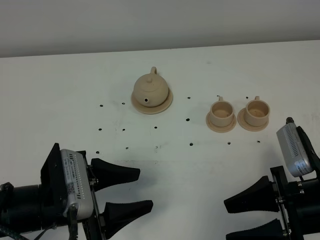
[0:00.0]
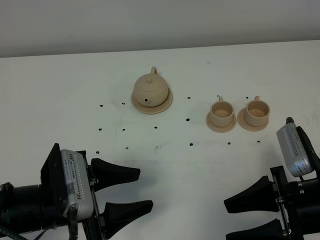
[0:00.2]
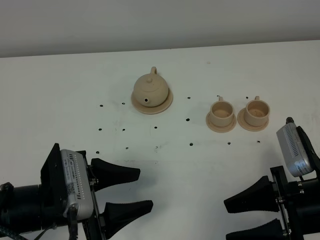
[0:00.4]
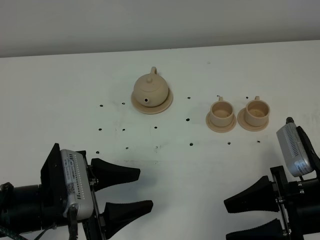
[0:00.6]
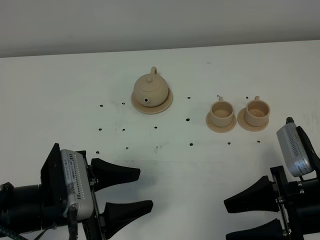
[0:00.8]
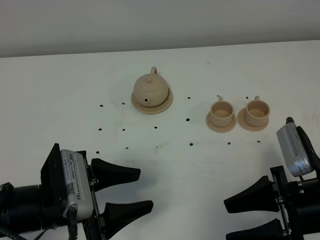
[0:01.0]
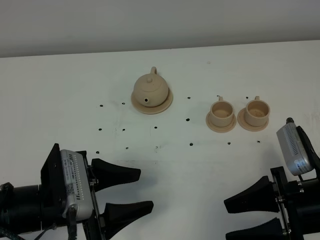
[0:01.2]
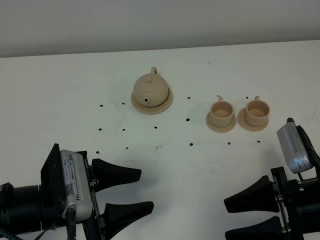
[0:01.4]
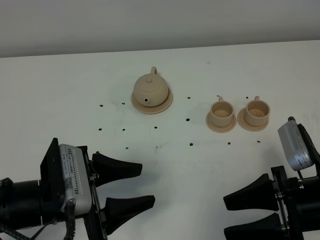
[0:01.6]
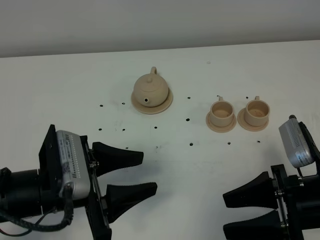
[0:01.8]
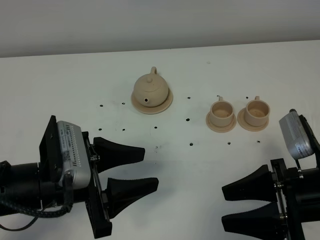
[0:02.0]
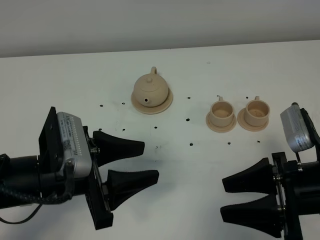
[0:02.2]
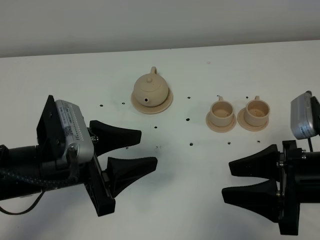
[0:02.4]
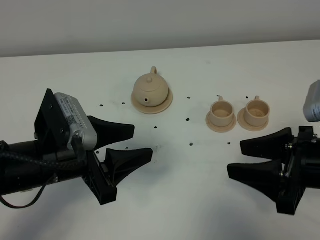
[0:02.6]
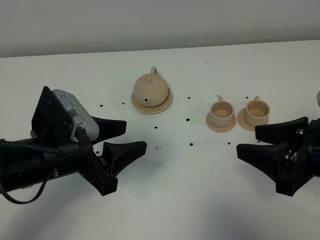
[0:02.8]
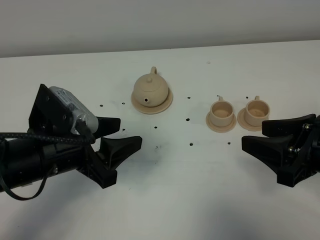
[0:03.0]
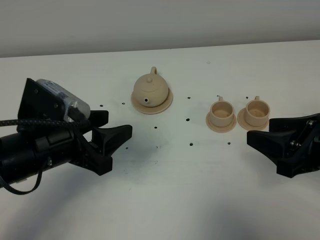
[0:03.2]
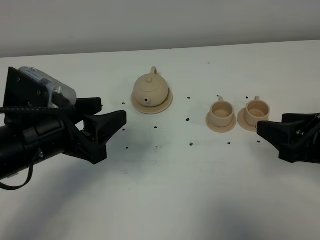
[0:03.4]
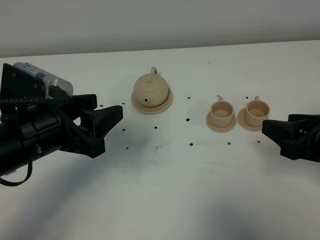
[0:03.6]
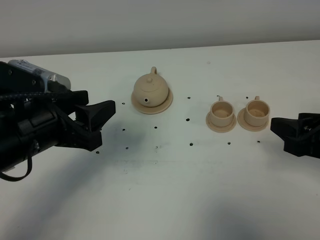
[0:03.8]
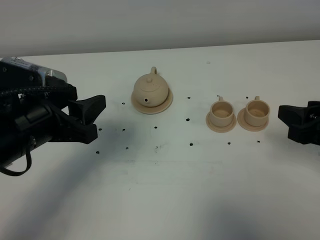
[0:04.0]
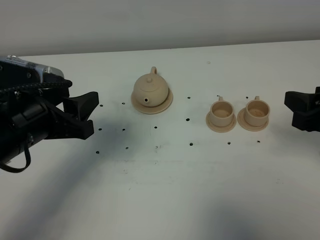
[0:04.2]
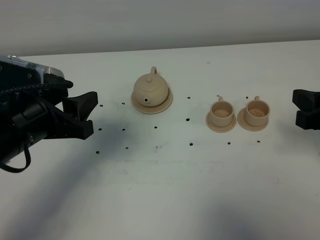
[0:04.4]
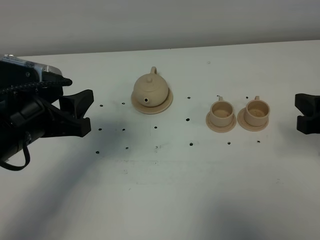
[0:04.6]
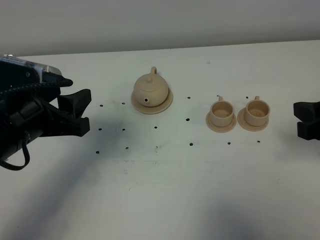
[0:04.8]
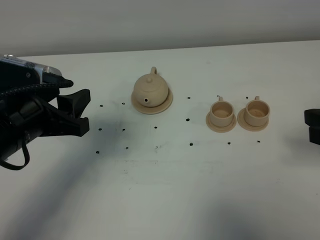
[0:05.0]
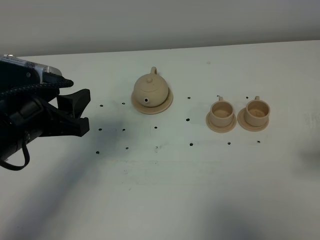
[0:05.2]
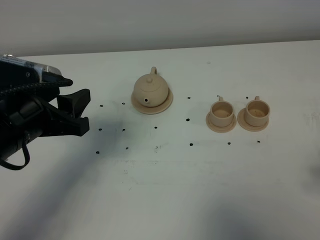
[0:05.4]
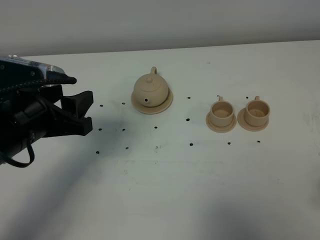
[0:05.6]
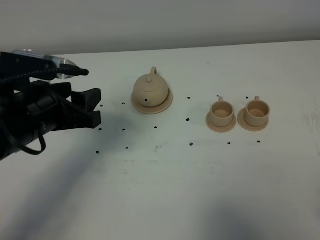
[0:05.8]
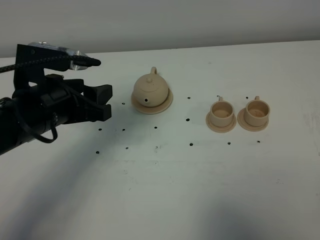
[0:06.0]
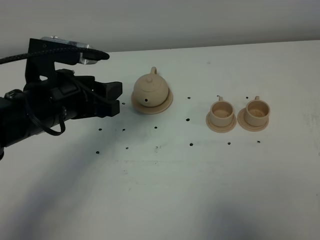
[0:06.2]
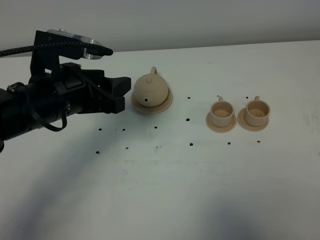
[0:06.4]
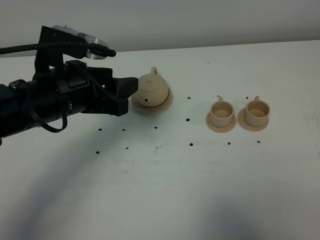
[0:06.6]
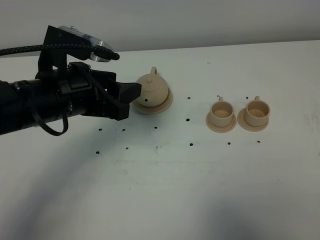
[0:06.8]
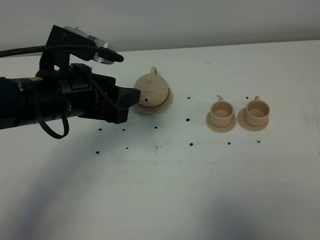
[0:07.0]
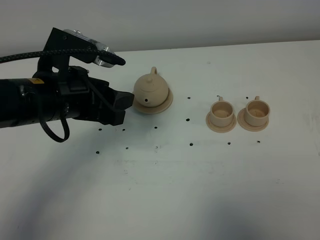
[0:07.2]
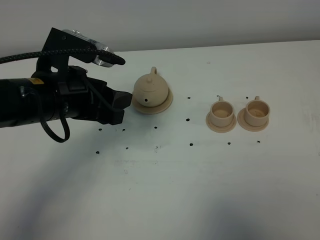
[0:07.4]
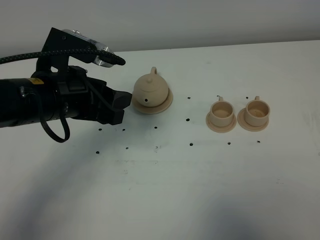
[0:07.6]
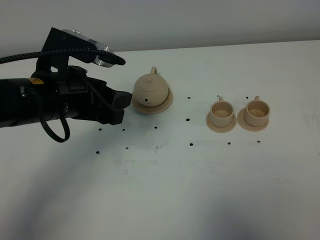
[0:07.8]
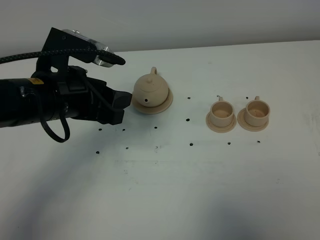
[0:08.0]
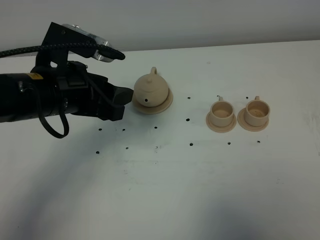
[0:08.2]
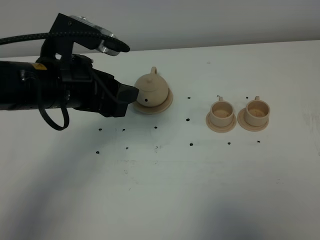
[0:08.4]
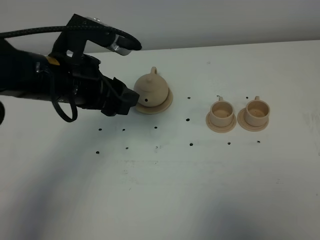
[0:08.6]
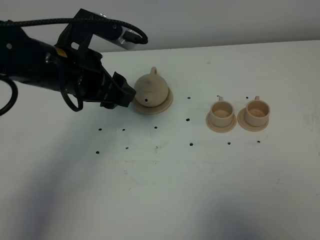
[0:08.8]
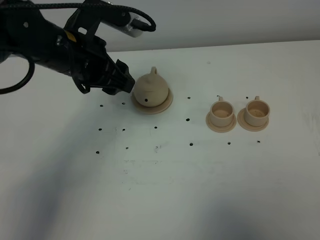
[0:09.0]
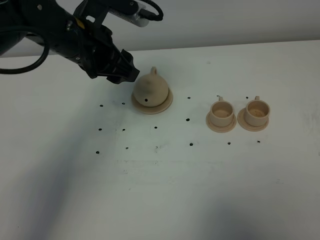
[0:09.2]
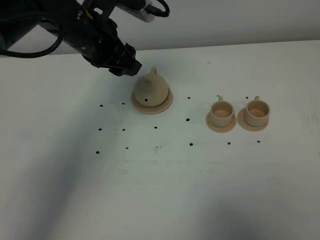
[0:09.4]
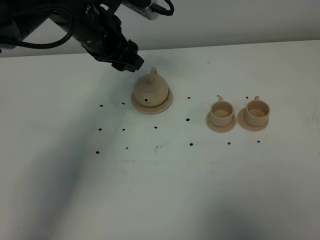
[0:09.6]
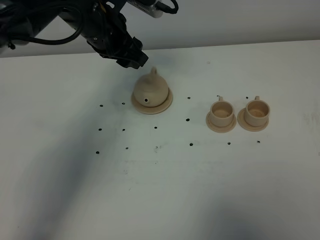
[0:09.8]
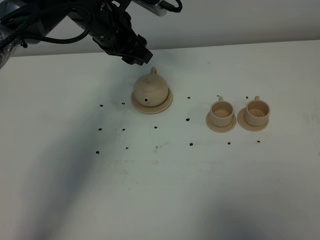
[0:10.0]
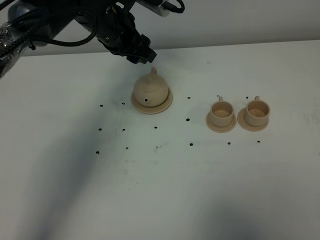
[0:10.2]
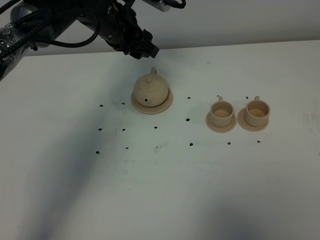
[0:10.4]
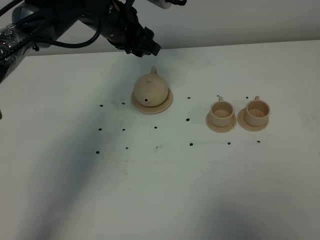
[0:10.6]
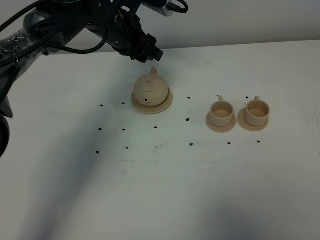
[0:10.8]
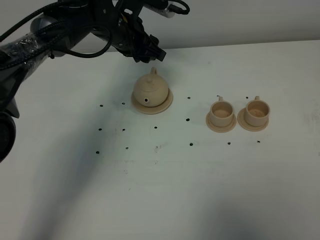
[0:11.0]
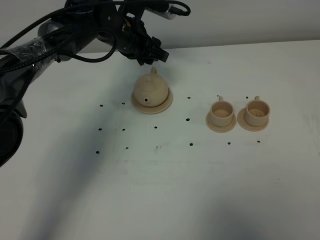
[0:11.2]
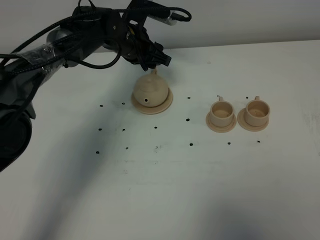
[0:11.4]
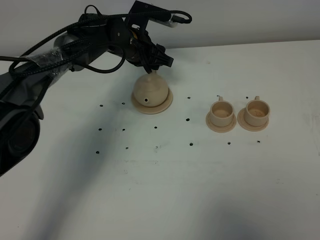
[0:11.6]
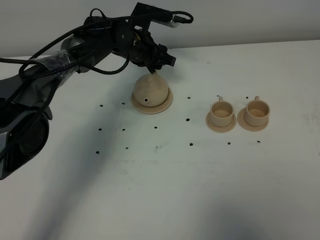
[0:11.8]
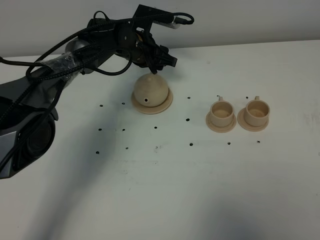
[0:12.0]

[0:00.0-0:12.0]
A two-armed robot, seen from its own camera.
Task of the whole recording: grasp the brown teapot and pour the tea into the two brown teacups one by one, put the brown teapot back in its original place.
0:00.0 to 0:01.6: The two grippers keep their place.
0:01.6 to 0:03.0: The left gripper changes place by roughly 5 cm. Meanwhile the right gripper heads upward, covering about 5 cm.
0:03.0 to 0:04.4: The right gripper changes place by some 5 cm.
0:04.4 to 0:06.0: The left gripper moves approximately 5 cm. The right gripper heads backward, covering about 15 cm.
0:06.0 to 0:07.6: The grippers stay close to where they were, moving slightly.
0:07.6 to 0:09.0: The left gripper is displaced forward by some 10 cm.
0:09.0 to 0:10.4: The left gripper travels forward by roughly 10 cm.
0:10.4 to 0:12.0: The left gripper heads downward and forward, covering about 10 cm.

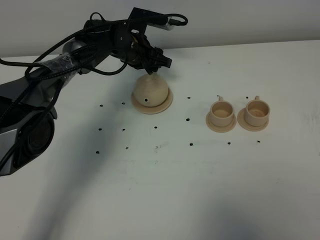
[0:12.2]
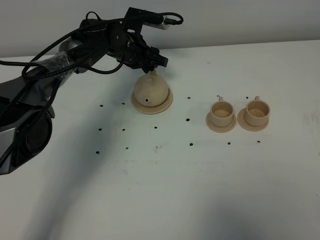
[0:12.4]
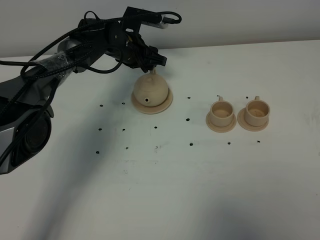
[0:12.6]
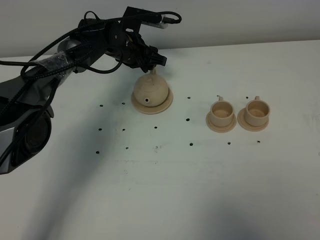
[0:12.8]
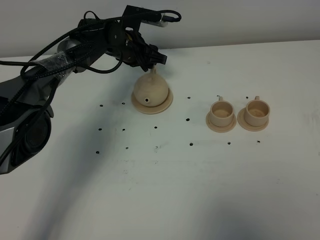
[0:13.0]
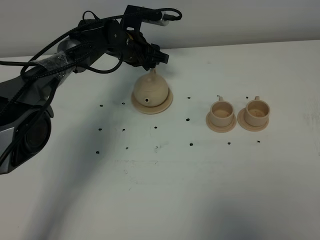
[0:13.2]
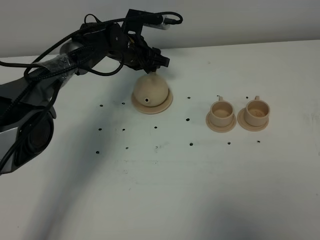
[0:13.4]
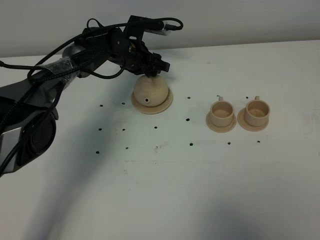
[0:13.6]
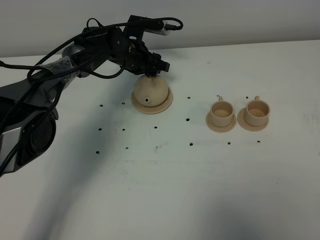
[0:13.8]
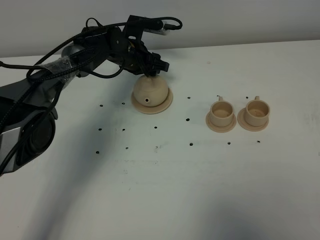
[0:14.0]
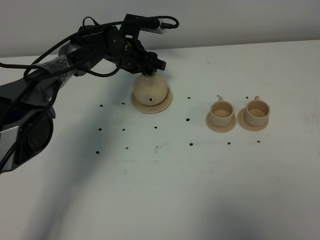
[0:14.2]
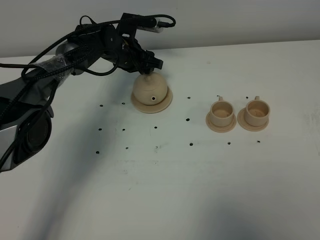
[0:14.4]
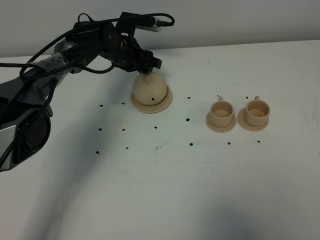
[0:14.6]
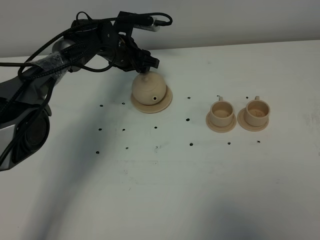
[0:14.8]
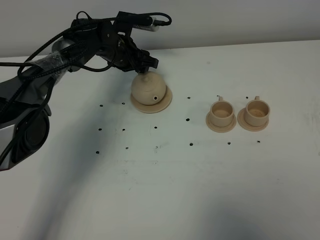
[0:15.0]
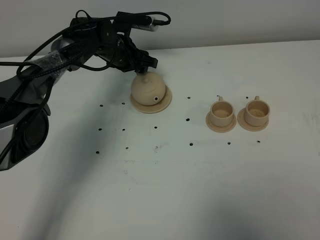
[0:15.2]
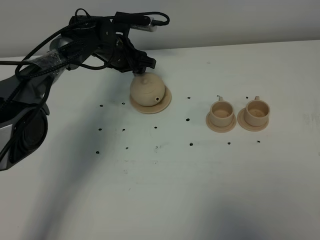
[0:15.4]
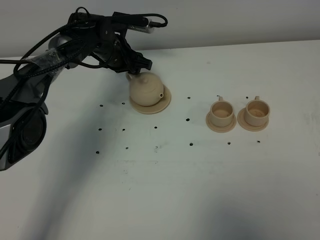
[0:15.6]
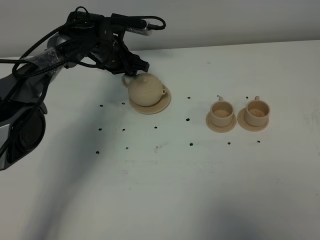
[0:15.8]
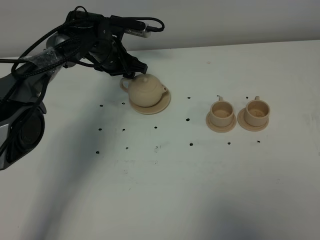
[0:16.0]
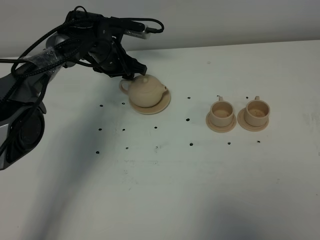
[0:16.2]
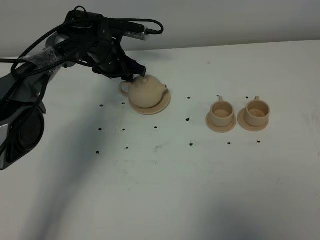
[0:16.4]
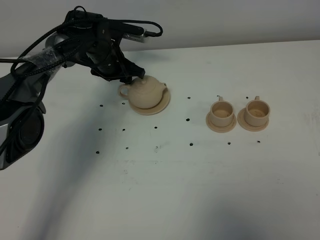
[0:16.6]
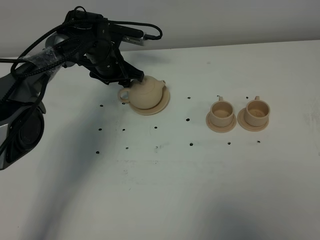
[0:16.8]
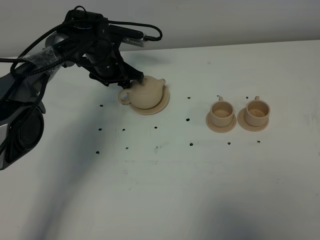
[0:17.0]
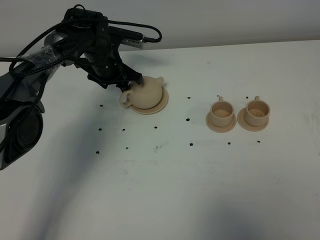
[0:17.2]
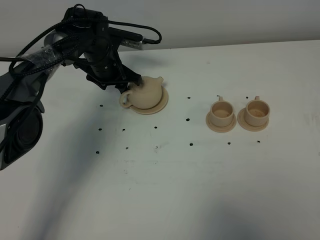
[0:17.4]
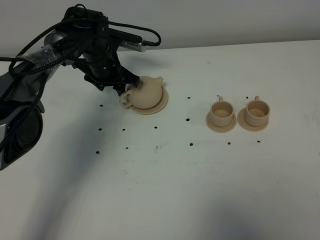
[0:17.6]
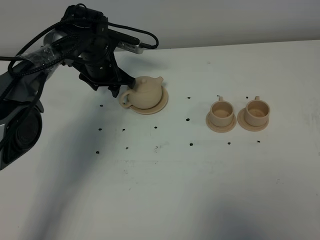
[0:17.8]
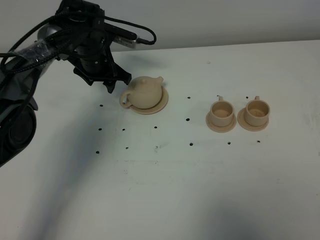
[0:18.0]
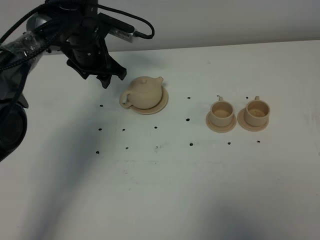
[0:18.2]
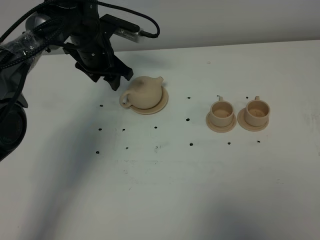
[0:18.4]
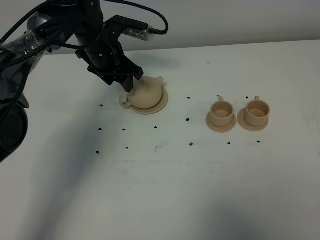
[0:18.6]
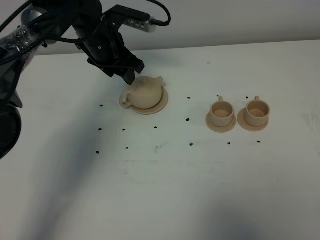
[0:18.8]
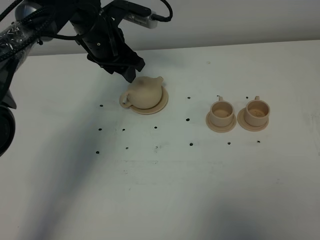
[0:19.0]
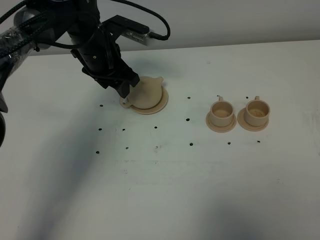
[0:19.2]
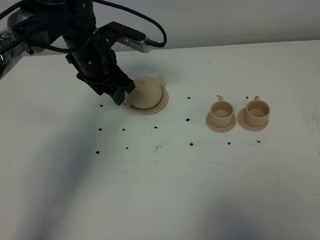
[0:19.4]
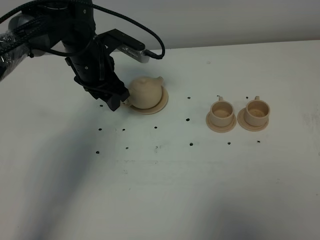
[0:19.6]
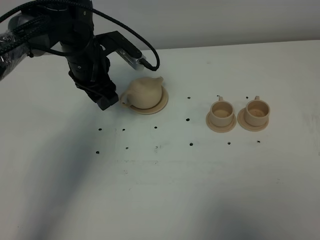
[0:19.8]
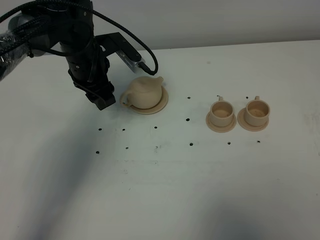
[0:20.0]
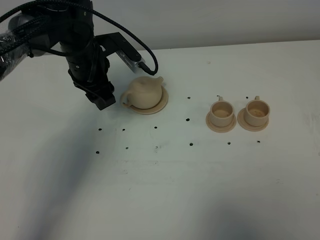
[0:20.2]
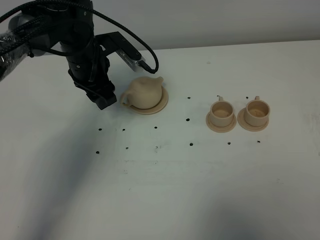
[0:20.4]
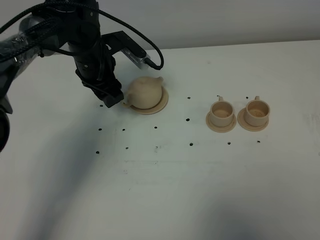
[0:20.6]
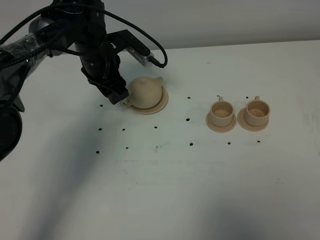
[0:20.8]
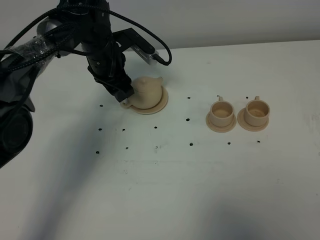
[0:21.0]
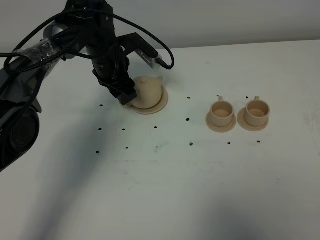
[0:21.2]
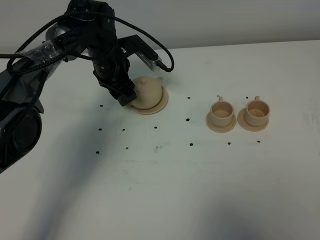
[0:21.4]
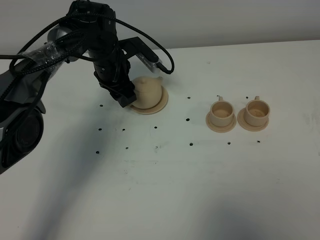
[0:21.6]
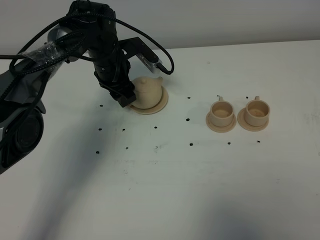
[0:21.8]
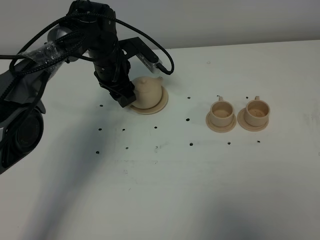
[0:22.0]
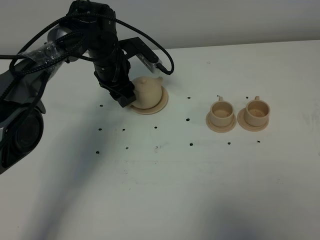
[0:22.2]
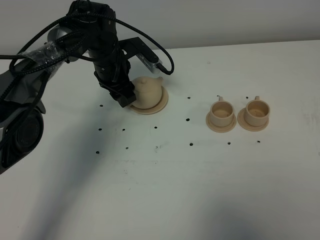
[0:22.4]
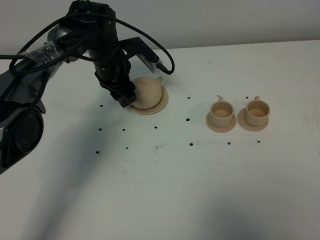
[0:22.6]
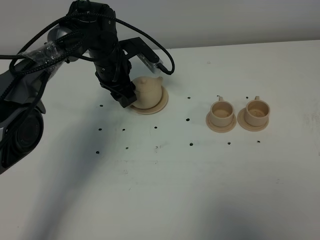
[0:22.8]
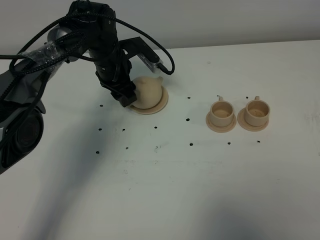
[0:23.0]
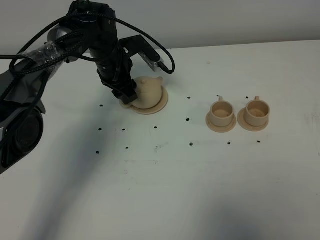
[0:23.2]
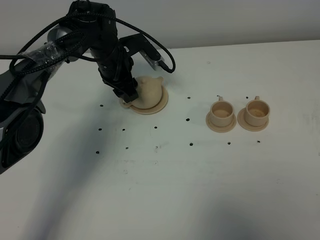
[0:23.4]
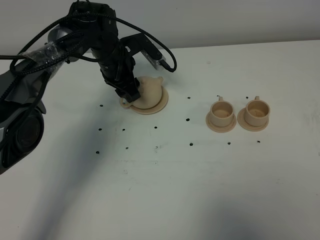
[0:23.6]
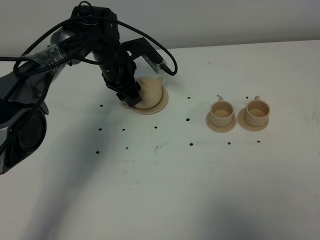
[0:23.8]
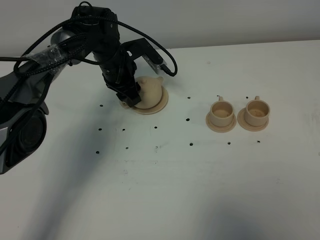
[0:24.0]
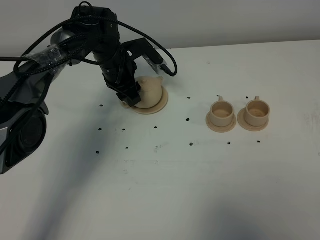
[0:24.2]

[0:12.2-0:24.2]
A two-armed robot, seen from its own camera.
Task of the whole recording: grasp the brown teapot and pour the tea into the two brown teacups one by one, put the brown teapot back in its original place.
0:12.2 to 0:15.2: The grippers make only small movements.
0:15.2 to 0:16.6: There are only small adjustments of the grippers.
0:16.6 to 0:18.2: The left gripper moves upward, approximately 5 cm.
0:18.2 to 0:19.8: The left gripper moves backward, roughly 5 cm.
0:19.8 to 0:21.2: The left gripper shifts by roughly 5 cm.
0:21.2 to 0:22.6: Both grippers stay put.
0:22.6 to 0:24.2: The grippers make only small movements.
